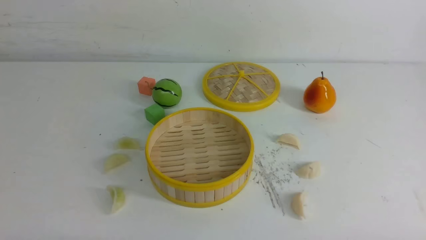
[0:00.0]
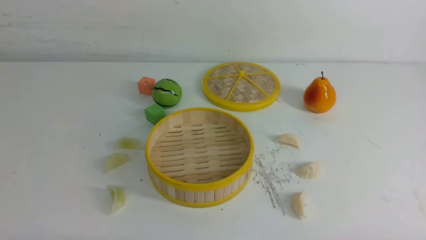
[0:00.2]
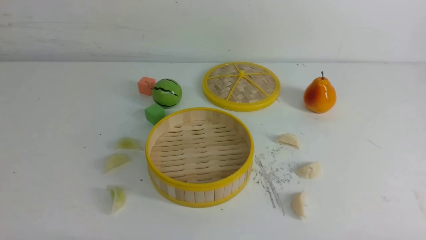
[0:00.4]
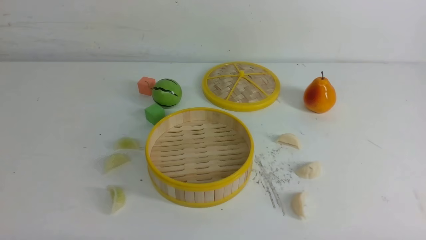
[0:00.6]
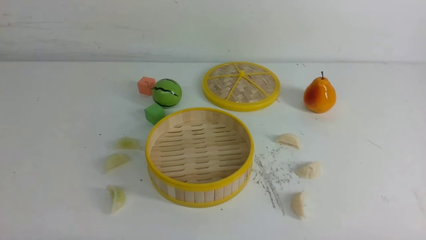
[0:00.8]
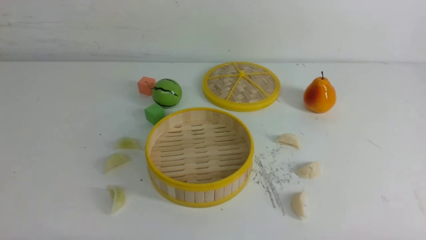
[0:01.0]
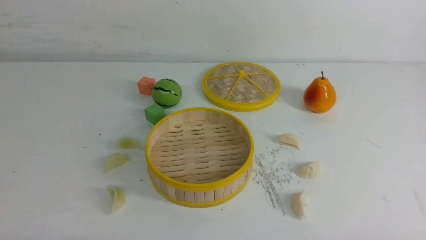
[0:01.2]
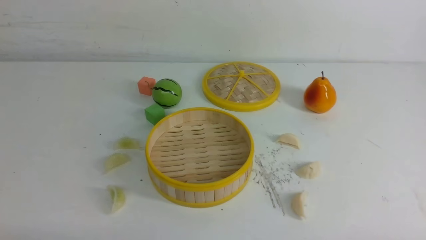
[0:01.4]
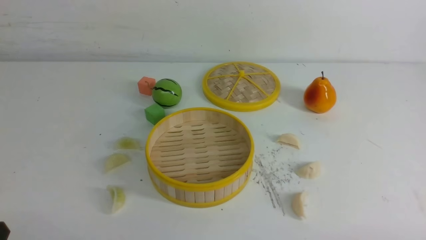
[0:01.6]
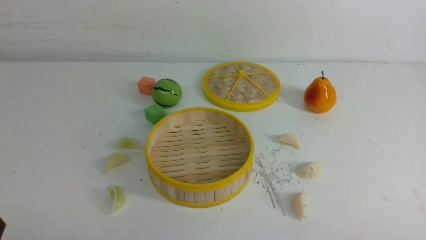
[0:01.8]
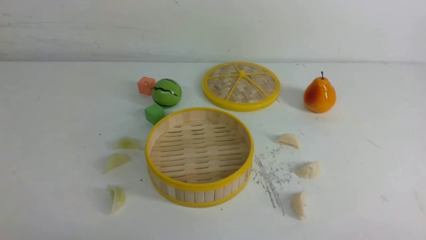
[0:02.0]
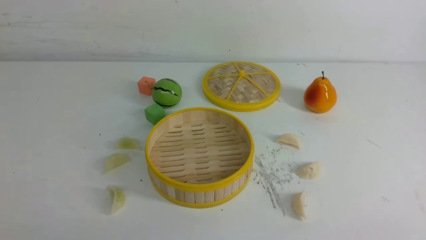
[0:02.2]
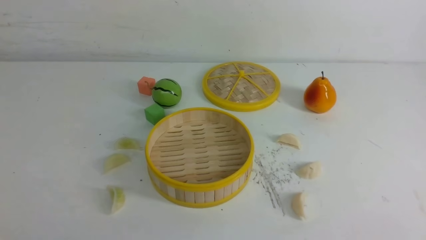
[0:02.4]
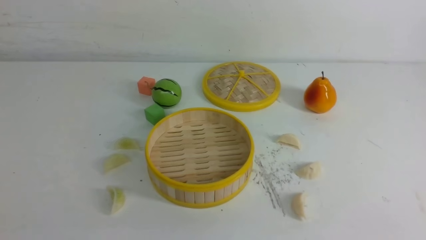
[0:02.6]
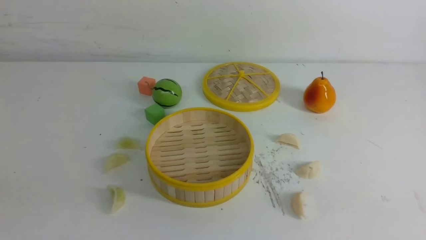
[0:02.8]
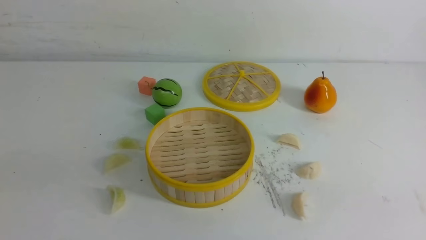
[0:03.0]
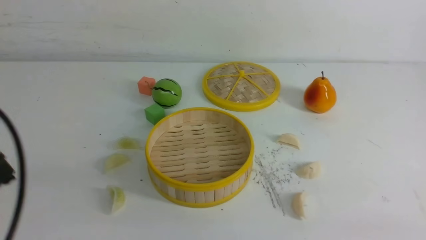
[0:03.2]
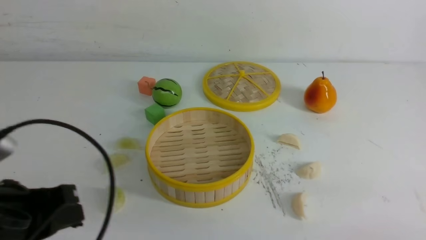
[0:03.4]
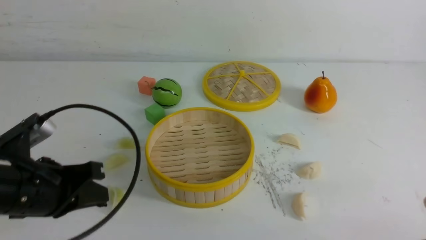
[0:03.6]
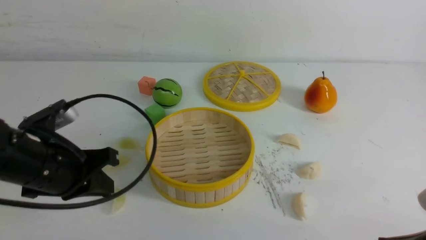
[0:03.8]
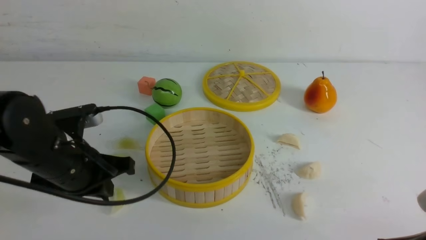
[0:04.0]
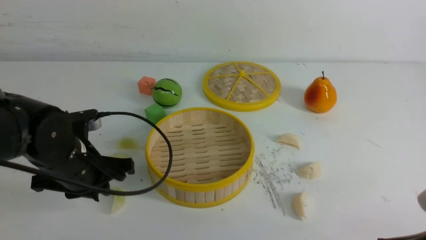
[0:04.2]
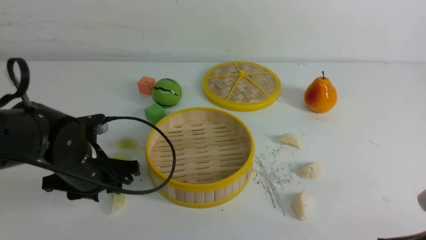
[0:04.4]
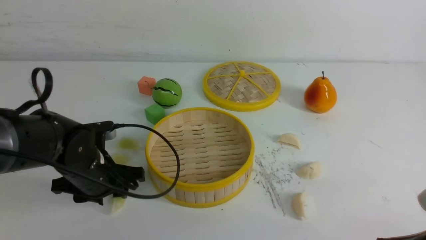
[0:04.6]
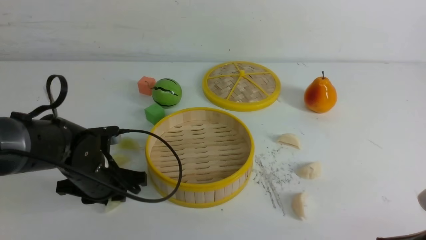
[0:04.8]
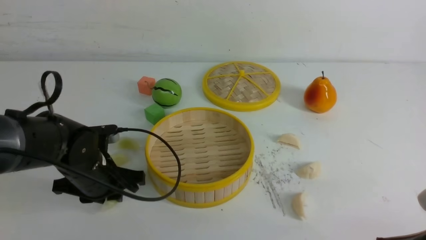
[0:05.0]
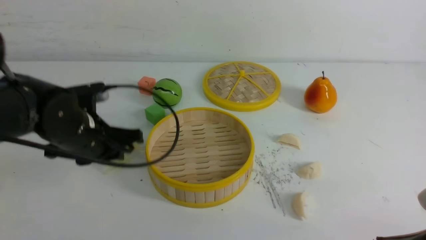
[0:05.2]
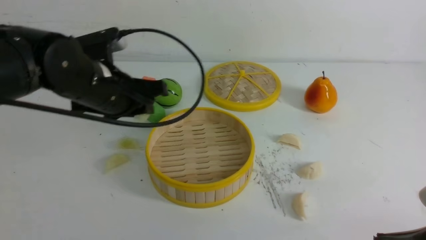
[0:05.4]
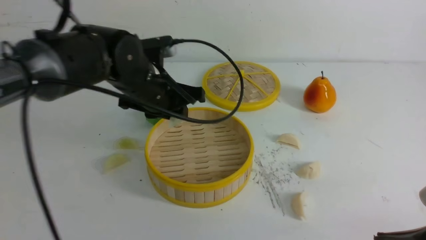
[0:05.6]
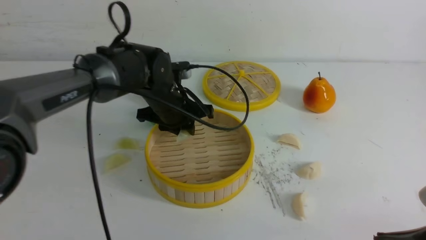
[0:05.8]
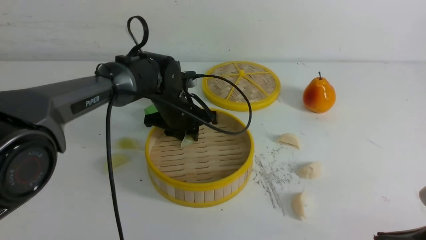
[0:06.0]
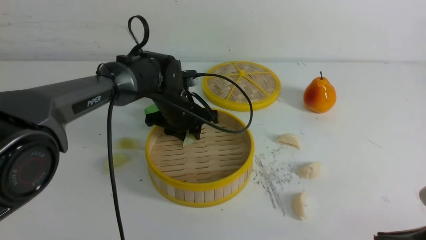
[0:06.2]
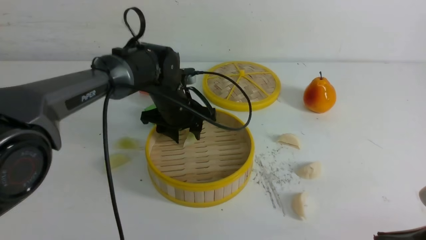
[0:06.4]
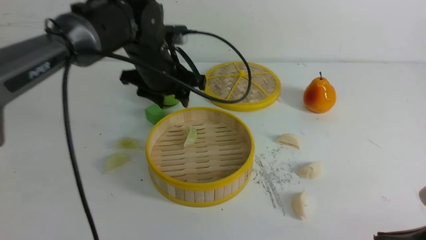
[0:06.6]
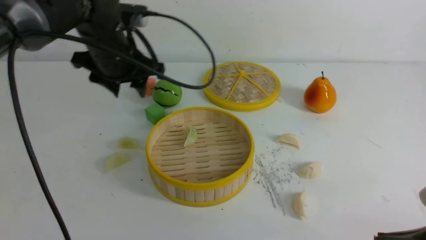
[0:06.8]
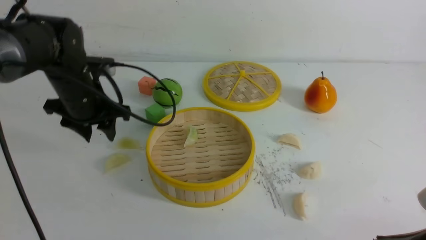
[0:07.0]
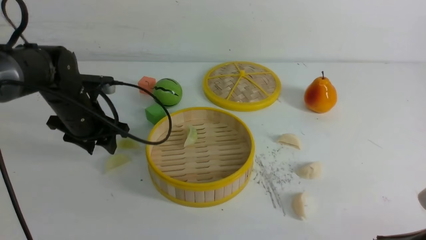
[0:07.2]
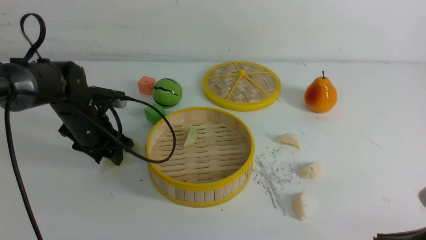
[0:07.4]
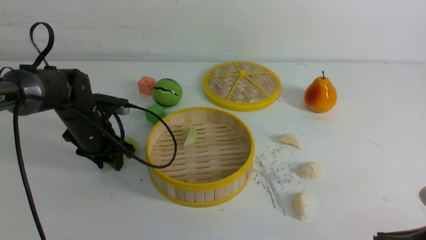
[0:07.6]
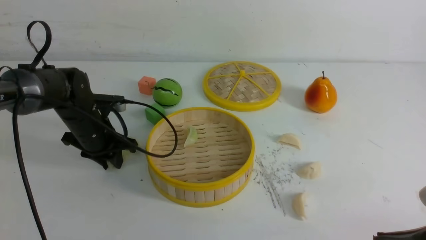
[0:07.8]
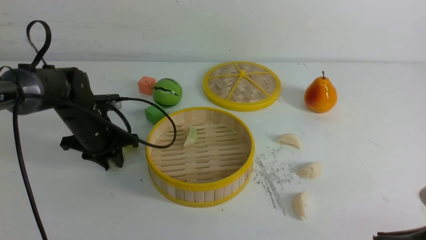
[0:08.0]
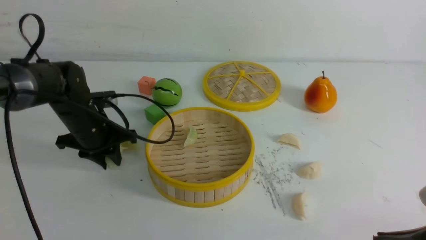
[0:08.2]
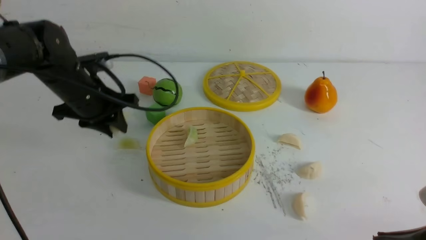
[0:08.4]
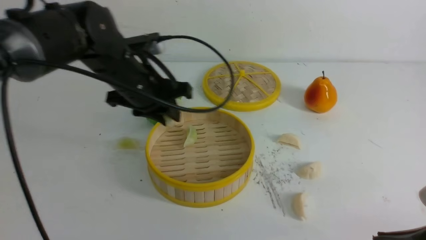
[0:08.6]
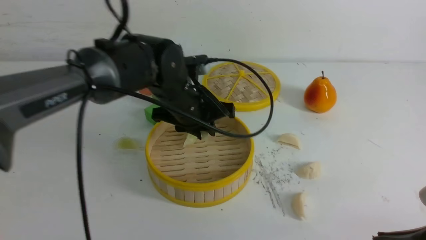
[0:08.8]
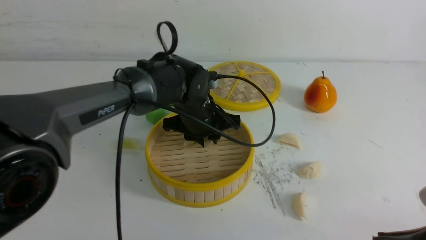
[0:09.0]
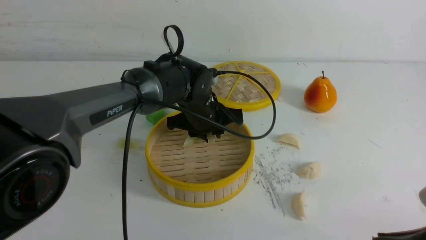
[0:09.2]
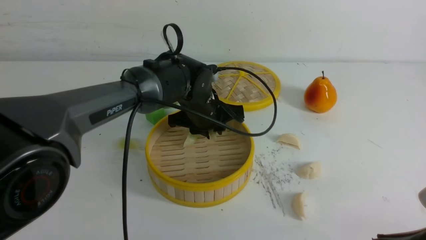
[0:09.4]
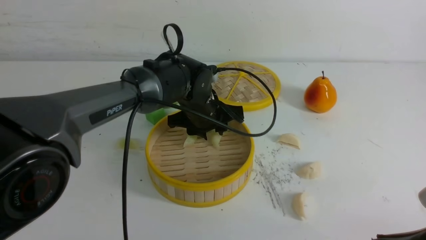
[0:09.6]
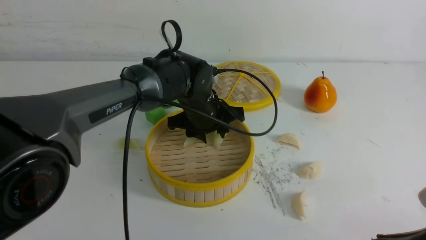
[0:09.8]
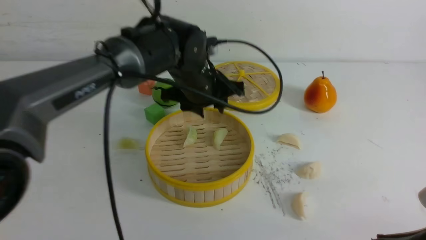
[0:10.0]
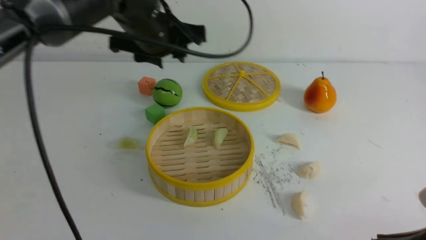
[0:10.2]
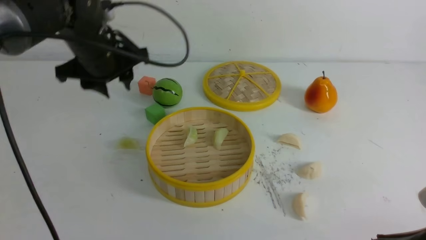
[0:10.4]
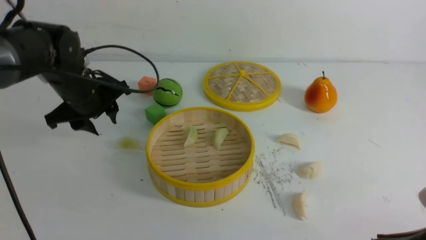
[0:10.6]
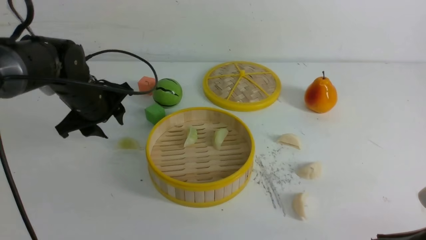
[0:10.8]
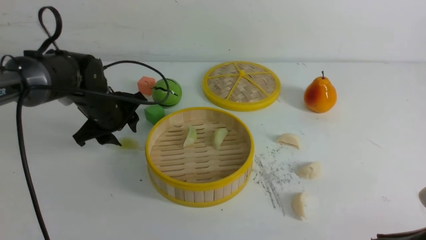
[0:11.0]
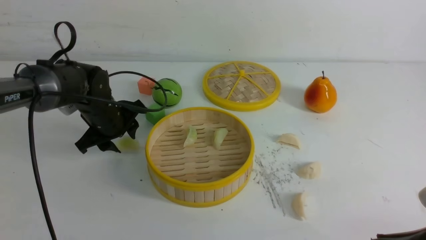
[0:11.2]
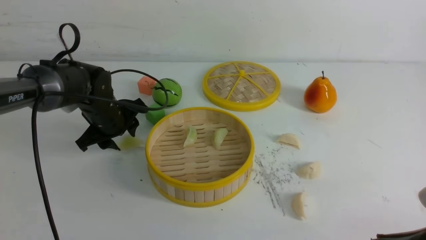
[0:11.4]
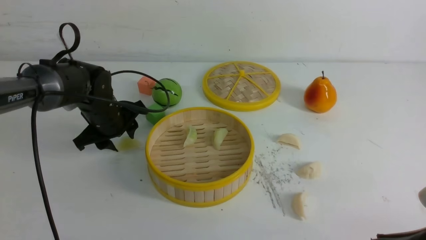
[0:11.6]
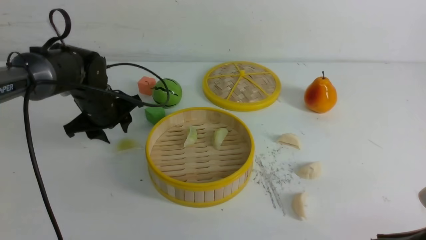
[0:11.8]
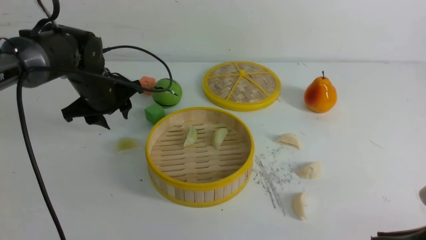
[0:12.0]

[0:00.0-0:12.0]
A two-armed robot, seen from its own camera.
Task of the whole recording: put the dumplings into the steamer on the white table.
Step, 0:00.0 to 0:05.0: use the left arm to grab a dumpling.
Step, 0:05.2 to 0:06.2: use the left arm to put the dumpling into the steamer.
Step, 0:06.6 to 0:08.0: use the left arm to grab a dumpling.
Step, 0:08.4 to 0:09.2: use the left arm to put the dumpling into the steamer.
0:03.0 to 0:04.4: The left gripper heads forward, downward and to the right, covering about 25 cm, and opens, while the right gripper goes roughly 10 cm downward and forward.
0:04.4 to 0:06.0: The left gripper travels forward and to the right by some 20 cm.
0:06.0 to 0:07.6: The left gripper heads to the left, covering approximately 15 cm.
0:07.6 to 0:09.0: The left gripper shifts roughly 20 cm to the right.
0:09.0 to 0:10.4: The left gripper shifts about 15 cm to the left and upward.
0:10.4 to 0:12.0: The left gripper heads downward, covering approximately 10 cm.

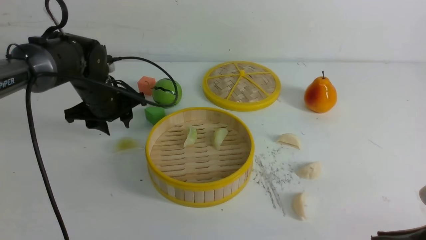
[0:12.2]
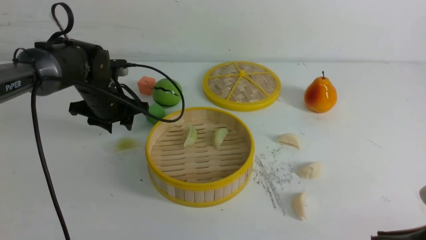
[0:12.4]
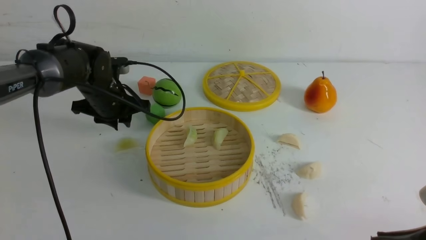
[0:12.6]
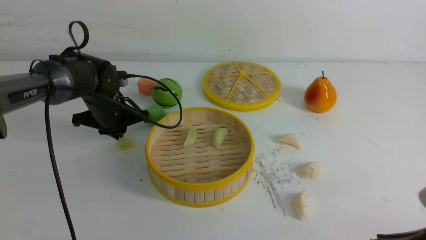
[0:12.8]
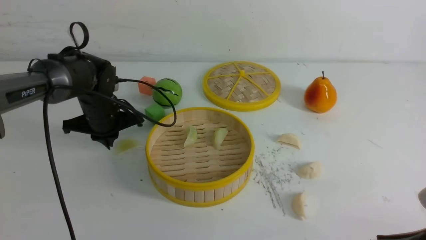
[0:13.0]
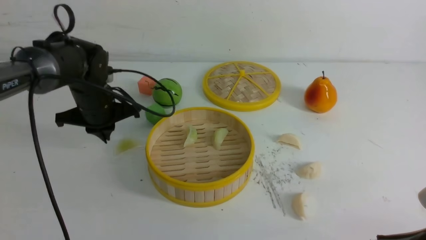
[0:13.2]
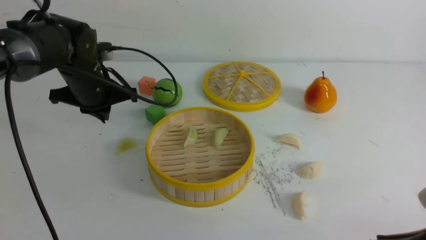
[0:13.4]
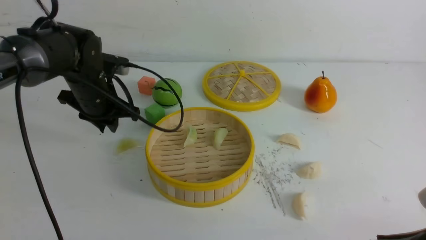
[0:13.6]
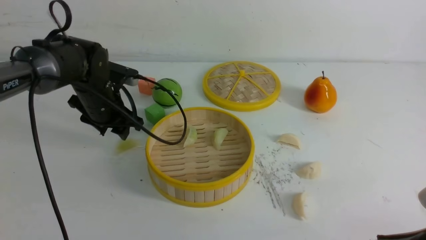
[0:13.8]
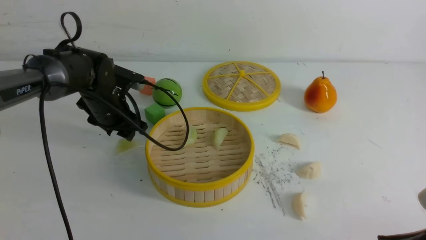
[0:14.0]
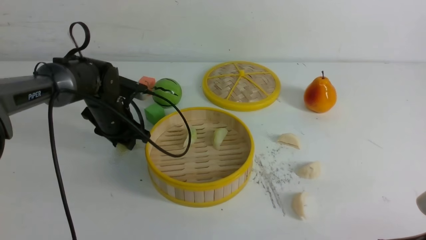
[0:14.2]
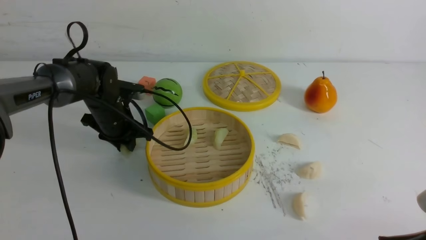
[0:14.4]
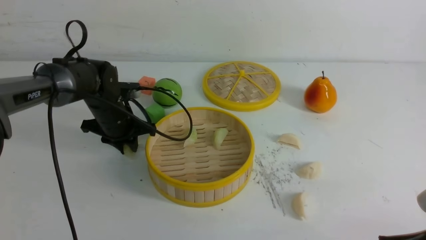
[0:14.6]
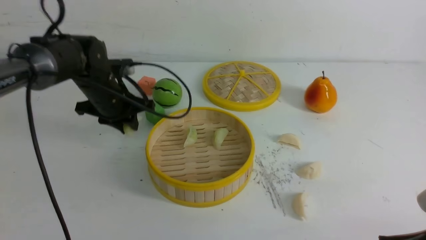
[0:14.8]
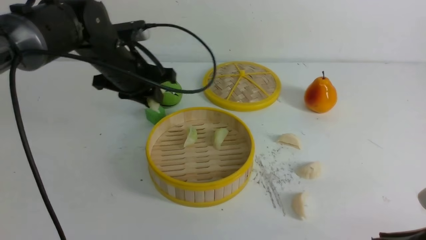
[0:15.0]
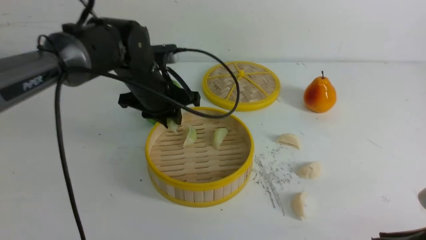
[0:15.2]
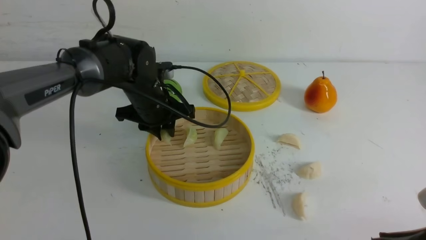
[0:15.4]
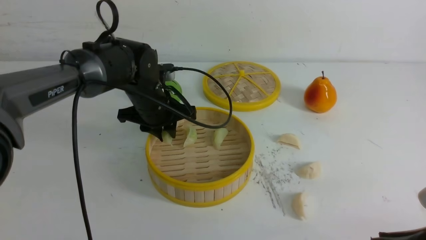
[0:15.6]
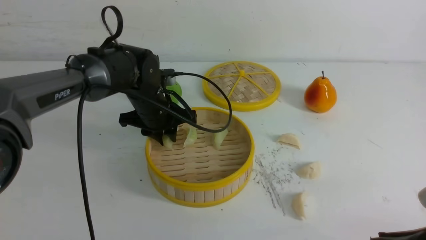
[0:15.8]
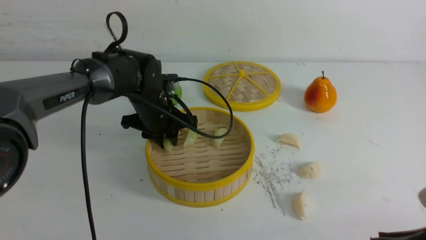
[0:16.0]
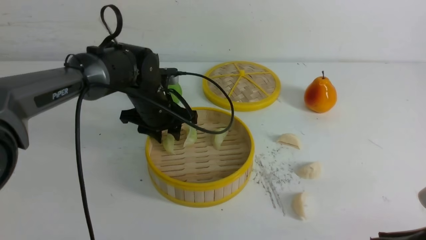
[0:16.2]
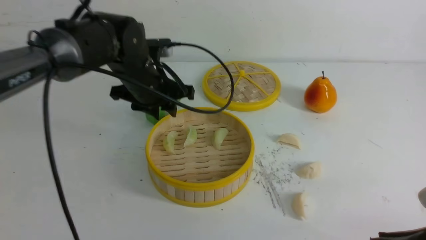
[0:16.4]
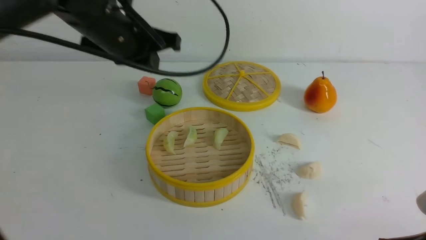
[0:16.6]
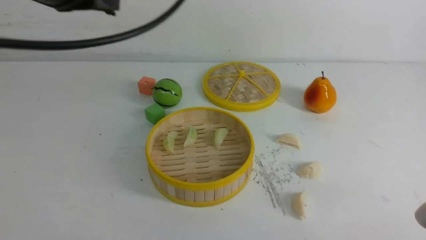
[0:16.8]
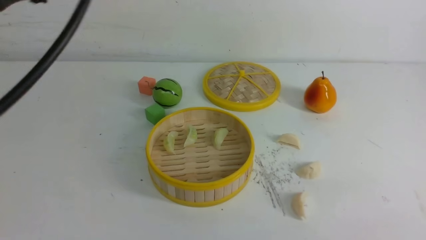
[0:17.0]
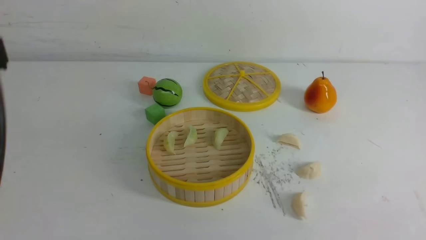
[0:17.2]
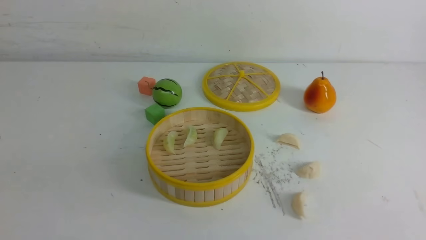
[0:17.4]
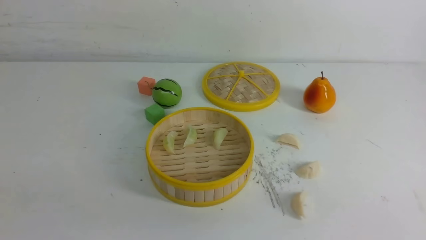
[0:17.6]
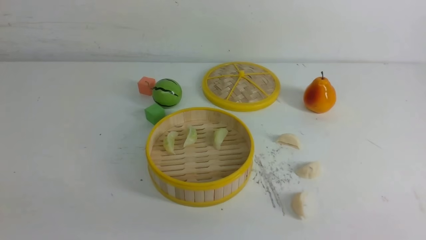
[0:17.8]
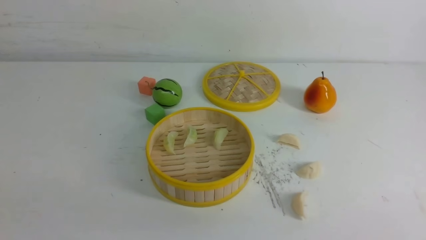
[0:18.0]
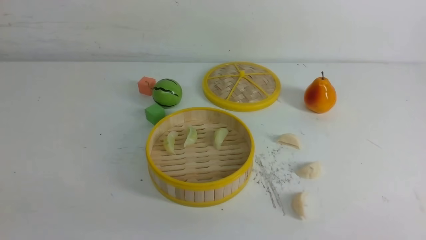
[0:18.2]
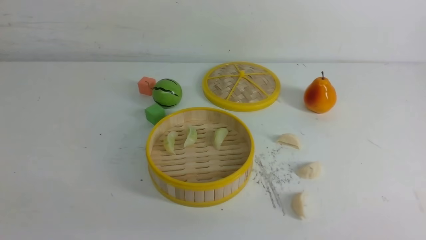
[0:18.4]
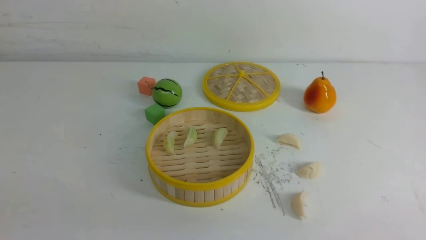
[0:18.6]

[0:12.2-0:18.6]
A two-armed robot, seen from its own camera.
Task of the whole recording: put the dumplings into the steamer on the white table.
Step, 0:12.2 to 0:14.6: use the left arm to grab a dumpling.
Step, 0:14.8 to 0:16.2: use the left arm to put the dumpling into the steamer.
0:12.2 to 0:13.8: The left gripper closes and opens again.
0:13.8 to 0:15.4: The left gripper goes approximately 10 cm to the right, travels upward and back again, some 5 cm each way, and closes up.
0:15.4 to 0:17.0: The left gripper travels backward and upward by approximately 35 cm, and closes, while the right gripper closes.
0:17.0 to 0:18.6: The left gripper shifts some 20 cm downward and backward.
